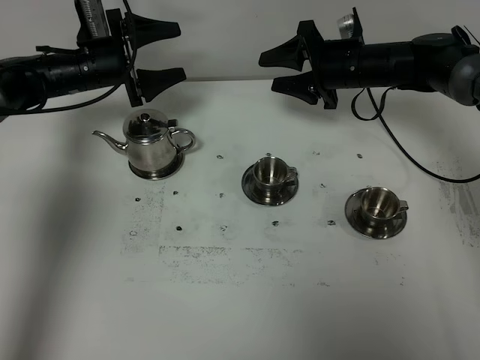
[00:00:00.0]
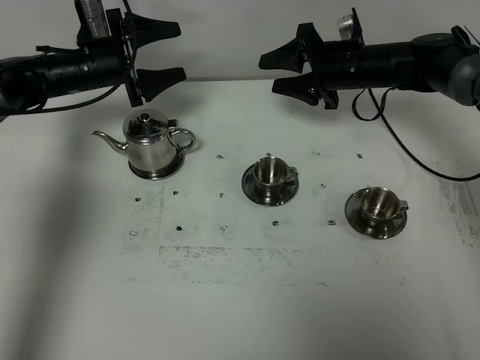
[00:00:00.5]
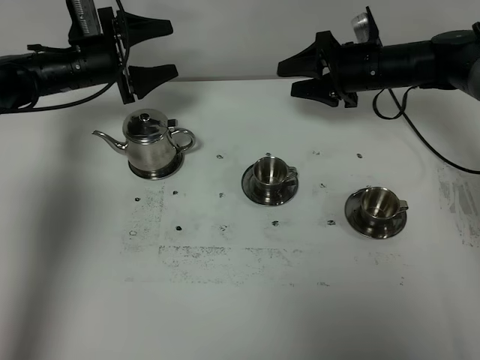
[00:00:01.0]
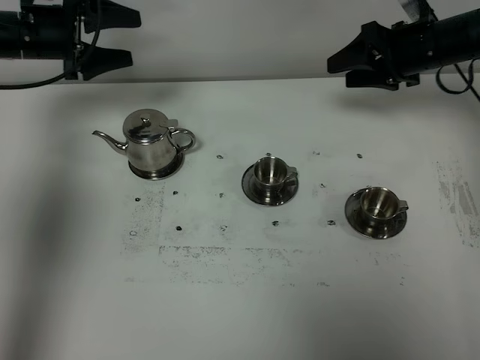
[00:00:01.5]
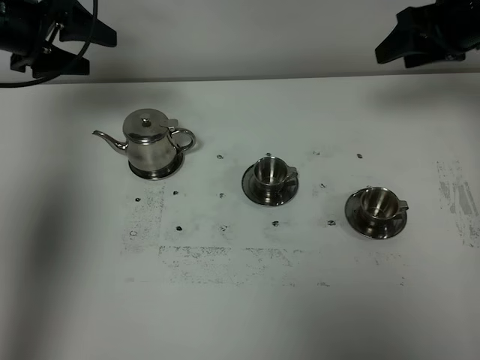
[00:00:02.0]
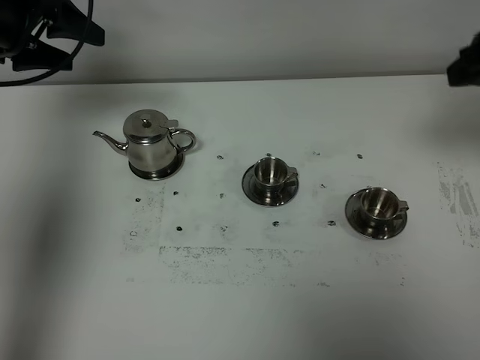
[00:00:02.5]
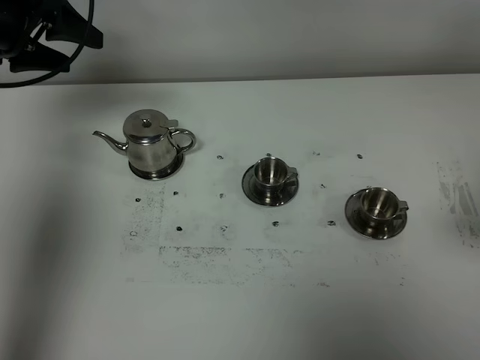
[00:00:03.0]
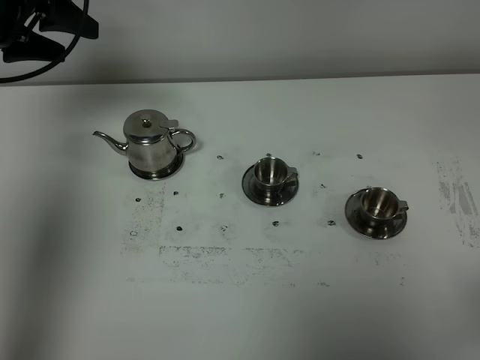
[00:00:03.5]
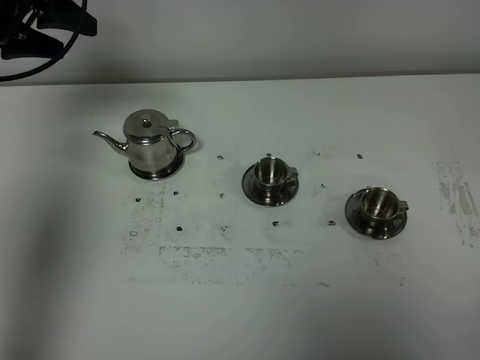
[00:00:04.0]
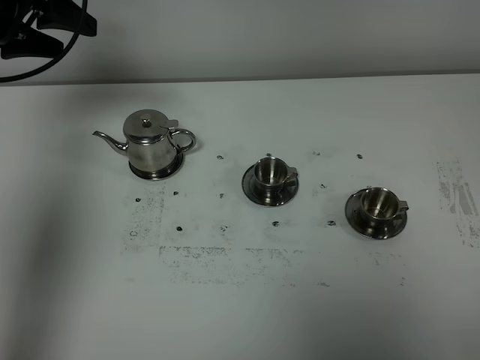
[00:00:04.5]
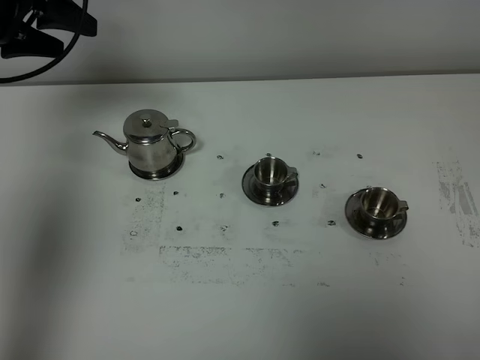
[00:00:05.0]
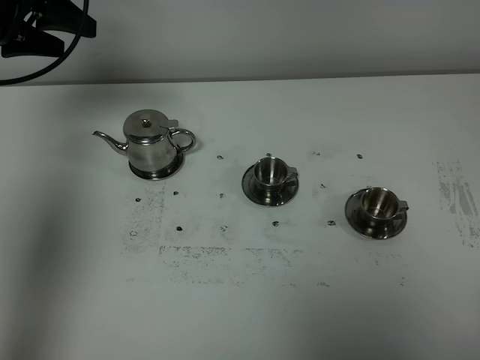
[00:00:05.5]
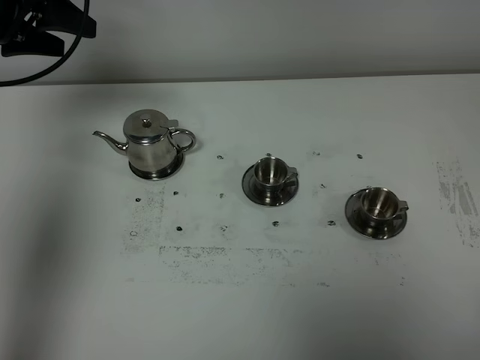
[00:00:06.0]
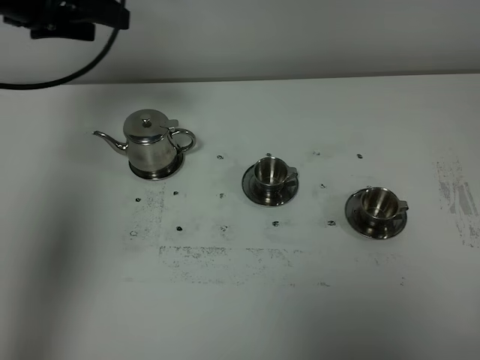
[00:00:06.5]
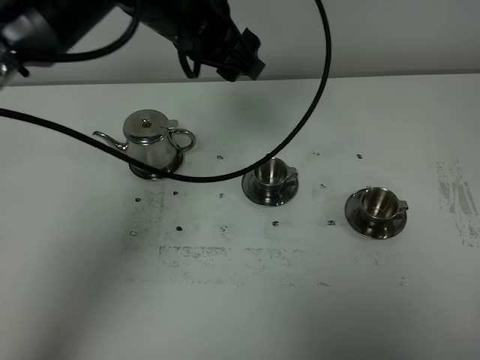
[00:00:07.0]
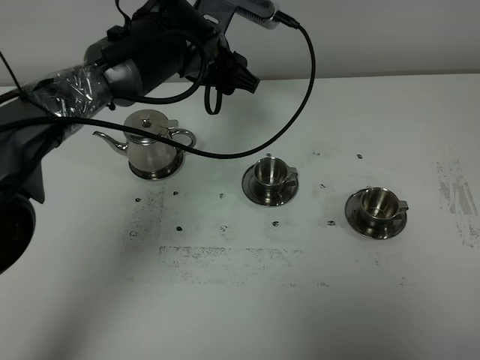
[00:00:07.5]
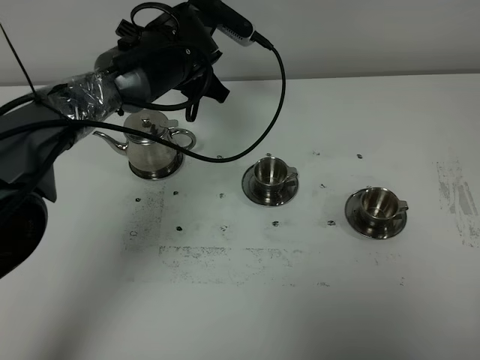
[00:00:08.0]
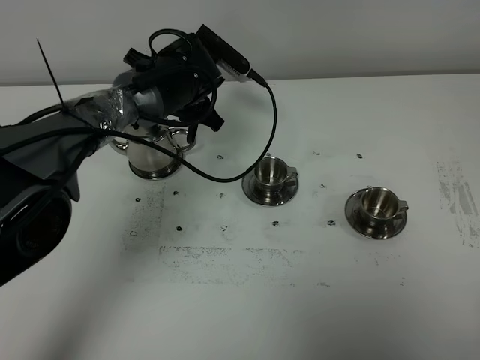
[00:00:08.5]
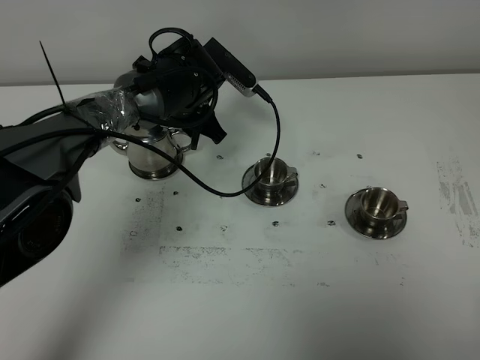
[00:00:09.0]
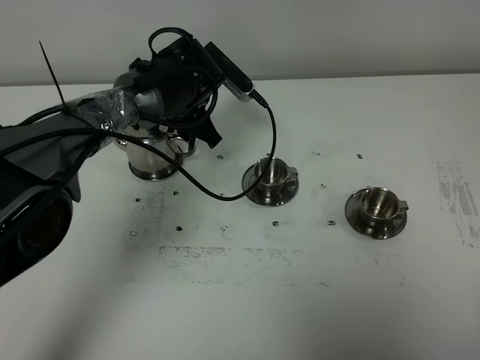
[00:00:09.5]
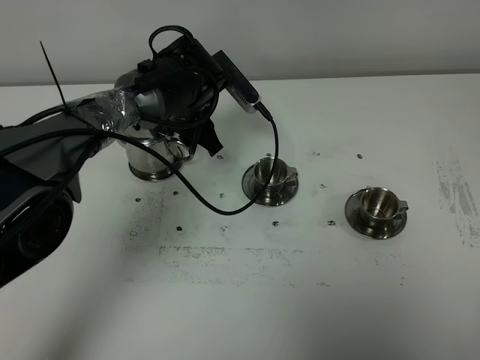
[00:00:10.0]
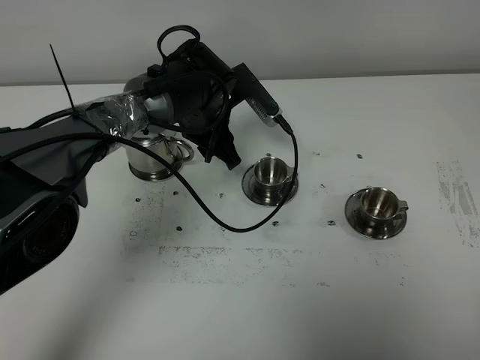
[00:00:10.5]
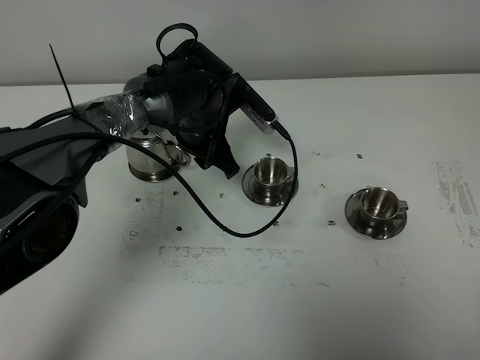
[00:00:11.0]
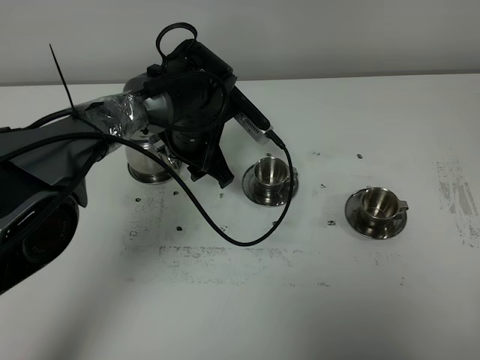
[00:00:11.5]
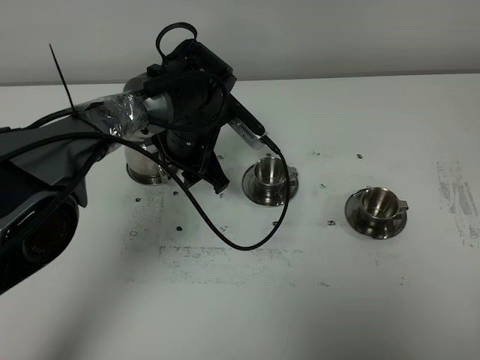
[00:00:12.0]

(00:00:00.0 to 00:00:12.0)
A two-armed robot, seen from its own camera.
Task of the whole recording: grasp the stainless steel teapot and pour the tea into the two stainless steel teacups one by one, put the stainless steel teapot back in its original place.
00:00:00.0 - 00:00:02.0: The right gripper moves upward, to the right and backward, about 20 cm. Meanwhile the left gripper heads upward, to the left and backward, covering some 15 cm.
00:00:02.0 - 00:00:04.0: The right gripper travels backward by some 40 cm.
00:00:06.0 - 00:00:08.0: The left gripper shifts roughly 25 cm to the right and downward.
00:00:08.0 - 00:00:10.0: The left gripper shifts approximately 5 cm downward.
00:00:10.0 - 00:00:12.0: The grippers move only a little.

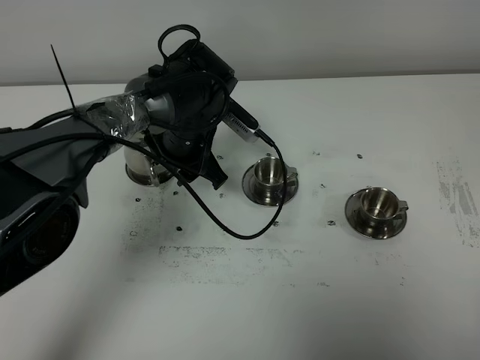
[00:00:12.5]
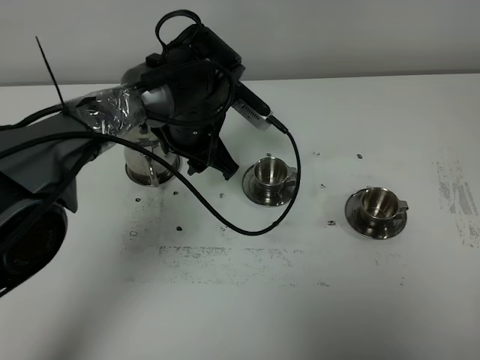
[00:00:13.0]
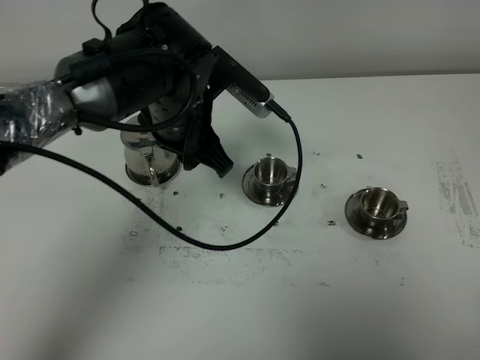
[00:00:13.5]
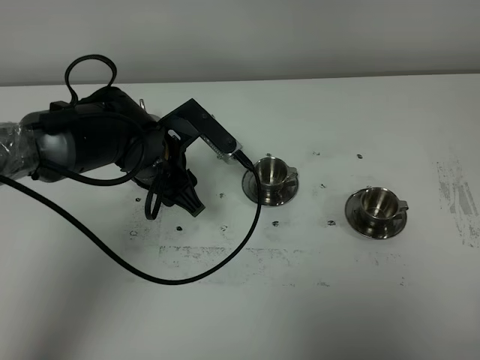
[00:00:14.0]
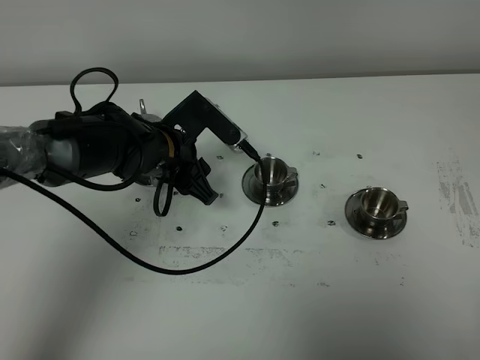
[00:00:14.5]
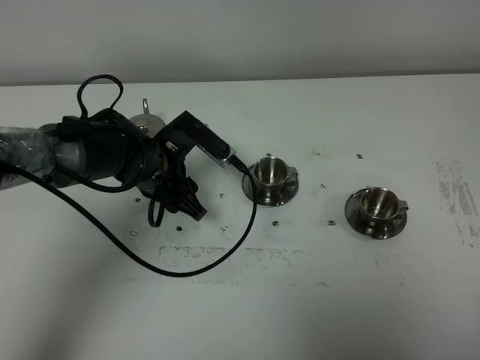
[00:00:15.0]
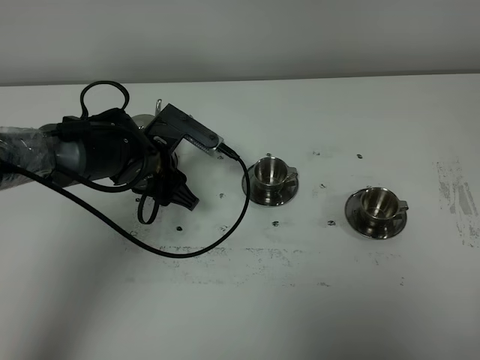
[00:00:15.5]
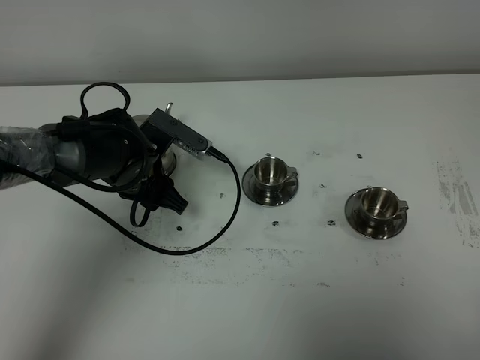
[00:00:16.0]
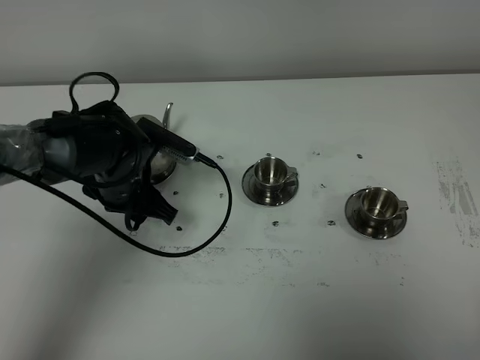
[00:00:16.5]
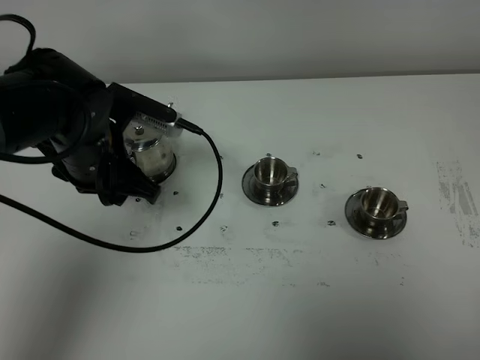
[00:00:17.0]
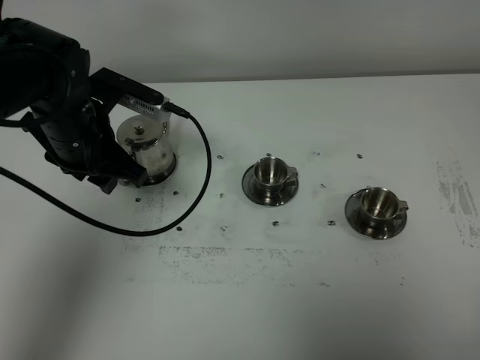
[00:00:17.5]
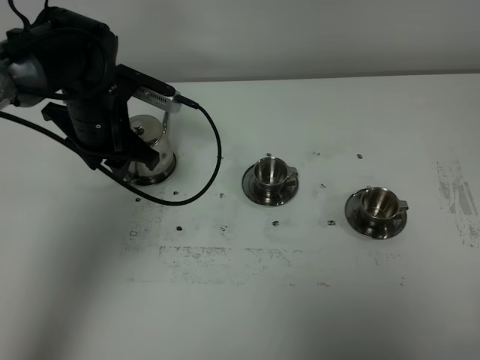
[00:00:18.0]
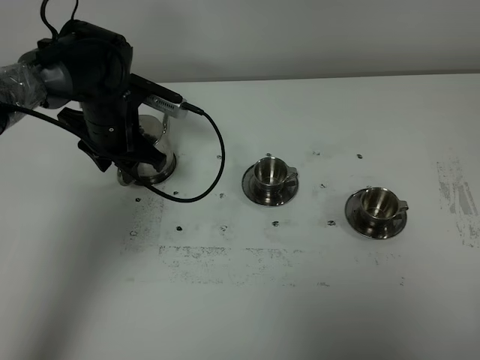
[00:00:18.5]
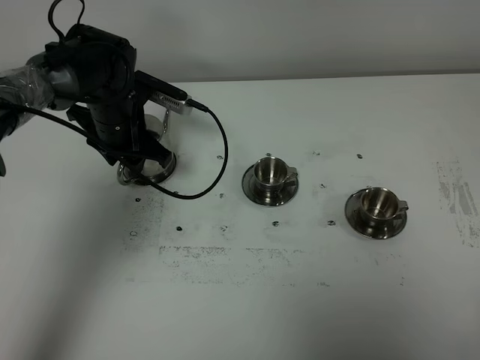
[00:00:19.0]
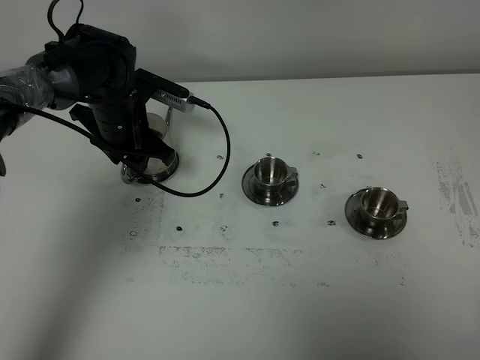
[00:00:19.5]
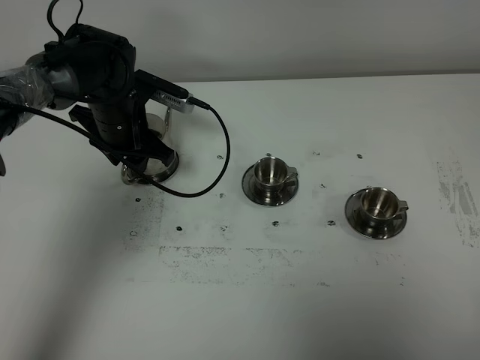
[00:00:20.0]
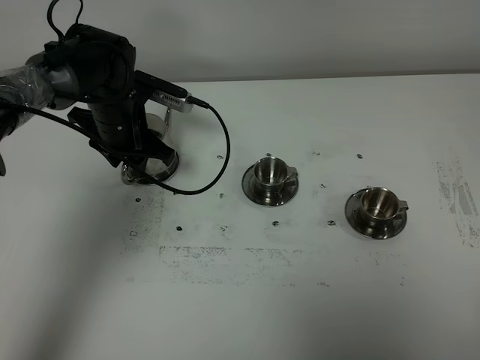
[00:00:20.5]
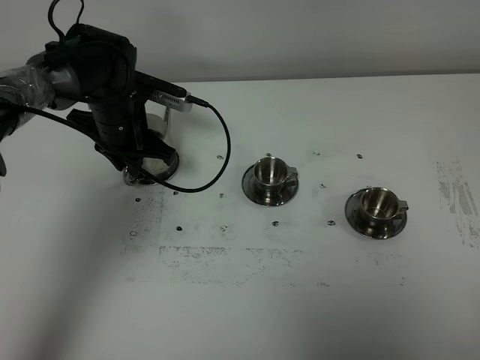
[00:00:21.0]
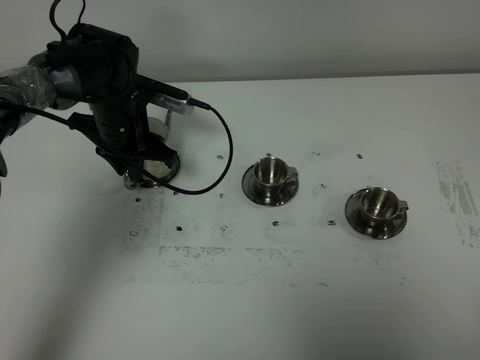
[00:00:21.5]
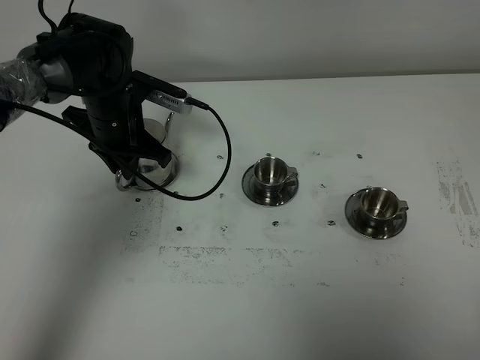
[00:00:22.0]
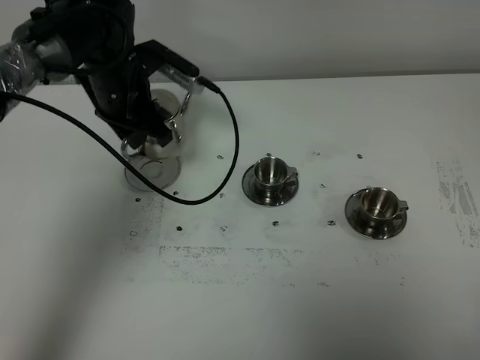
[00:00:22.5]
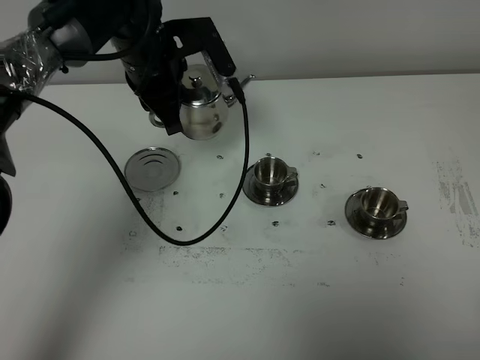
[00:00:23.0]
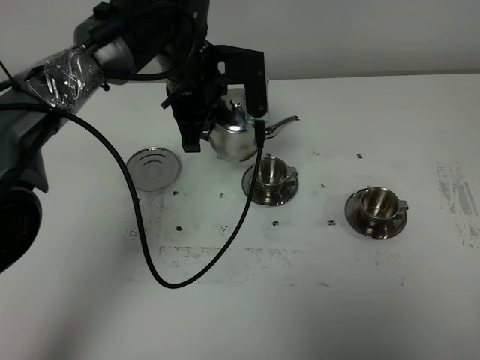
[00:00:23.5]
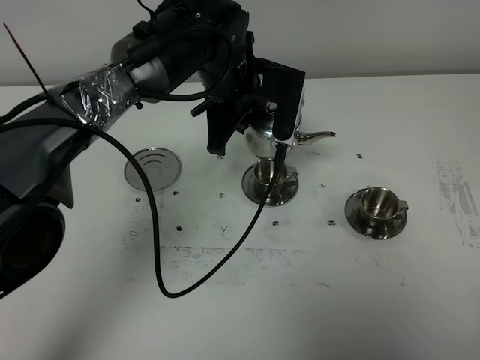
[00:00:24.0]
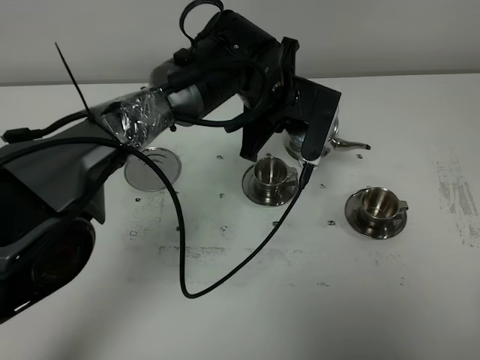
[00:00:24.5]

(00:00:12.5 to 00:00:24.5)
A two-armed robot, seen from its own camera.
Task of the whole recording: grasp the stainless steel teapot and pour the tea into the two stainless steel teacups one by one, put the stainless steel teapot back in its original place.
Step, 00:00:12.5 - 00:00:22.0: Pick up the teapot with the left gripper.
00:00:12.5 - 00:00:14.5: The left gripper travels backward by some 5 cm, and goes upward and returns, about 10 cm each way.
00:00:16.5 - 00:00:18.5: The left gripper is displaced forward by about 10 cm.
00:00:18.5 - 00:00:20.5: There are only small adjustments of the grippers.
00:00:20.5 - 00:00:22.5: The left gripper moves upward, roughly 5 cm.
00:00:22.5 - 00:00:24.5: The left gripper is displaced to the right by approximately 20 cm.

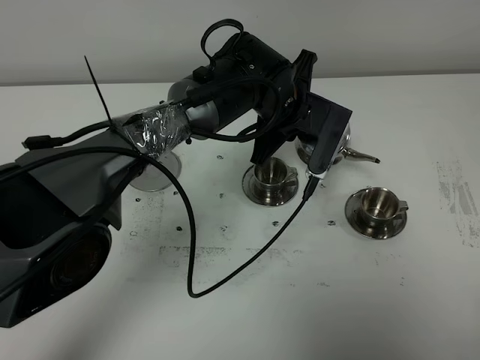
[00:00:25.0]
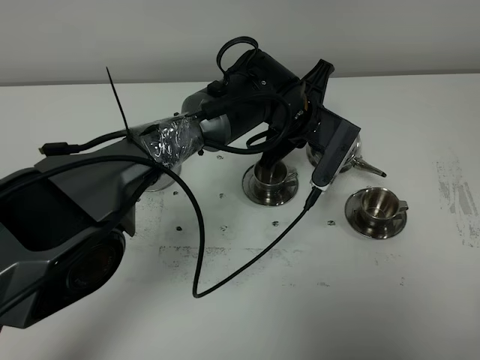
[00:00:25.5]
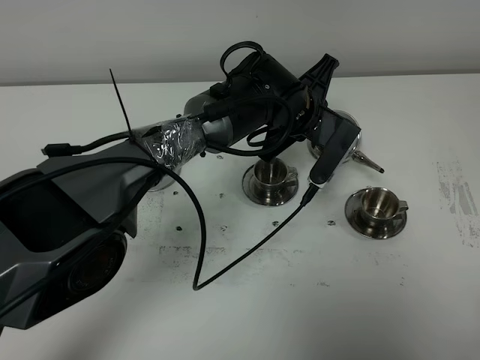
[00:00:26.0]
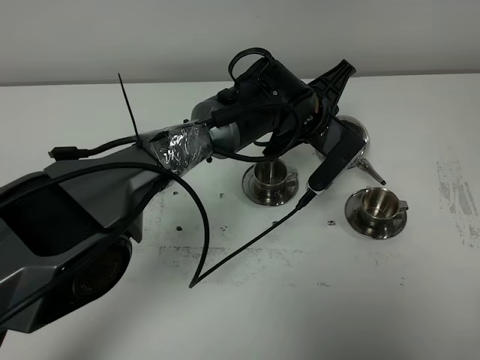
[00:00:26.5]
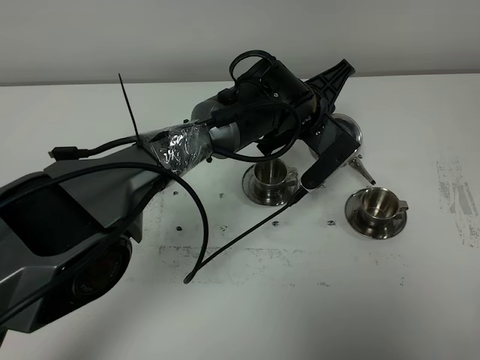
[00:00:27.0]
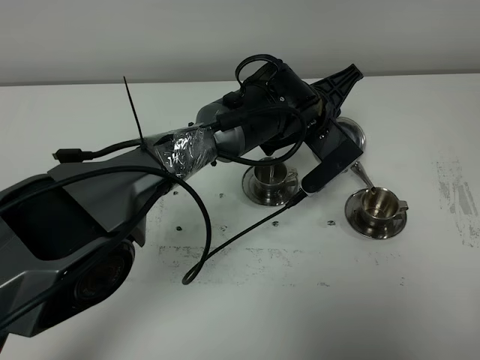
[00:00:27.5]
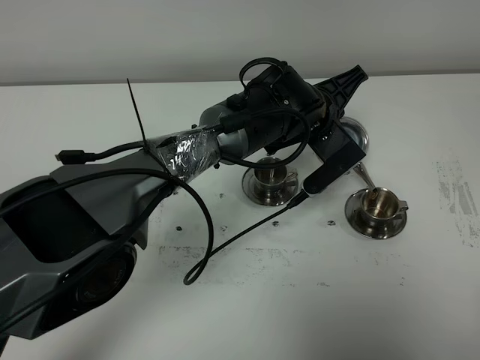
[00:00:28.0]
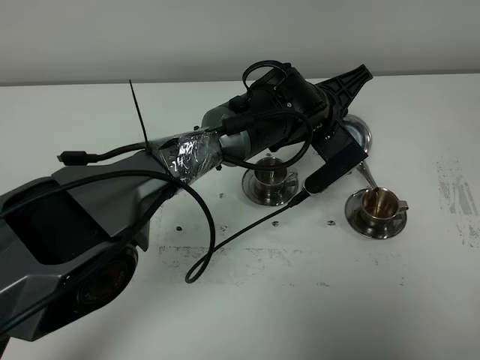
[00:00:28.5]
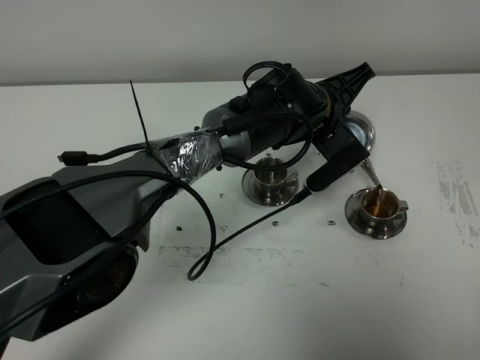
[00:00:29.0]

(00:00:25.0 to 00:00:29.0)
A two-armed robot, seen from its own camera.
Task of the whole recording: grasp the stainless steel teapot and pour the tea into the two stainless steel teacups one by one, put the stainless steel teapot back in its original place.
00:00:27.0 - 00:00:29.0: There are only small adjustments of the grippers.
